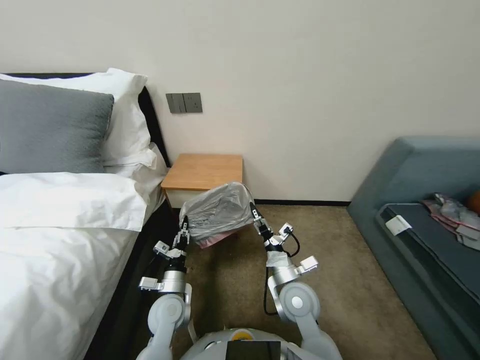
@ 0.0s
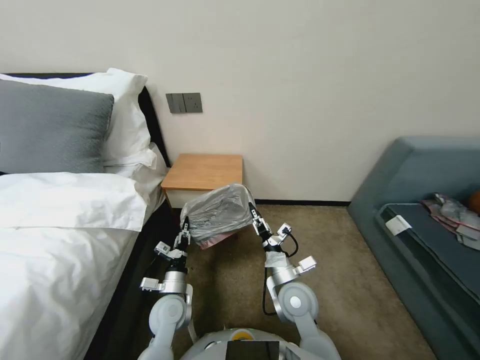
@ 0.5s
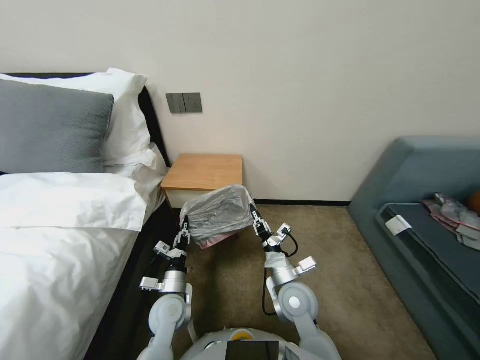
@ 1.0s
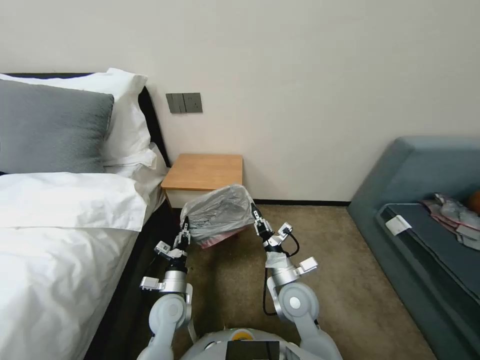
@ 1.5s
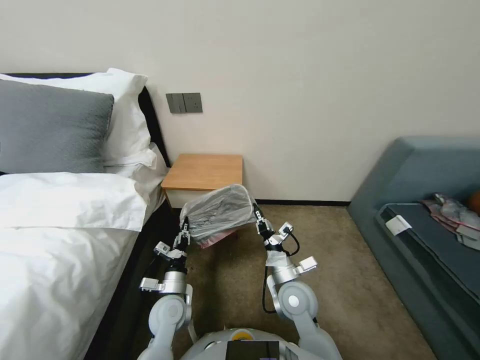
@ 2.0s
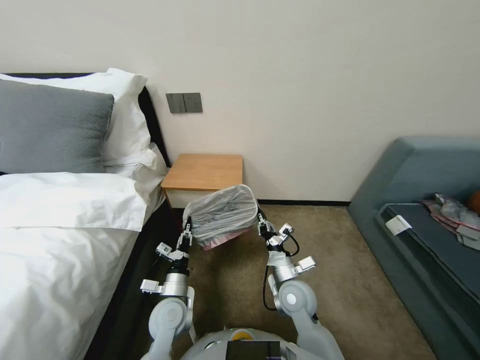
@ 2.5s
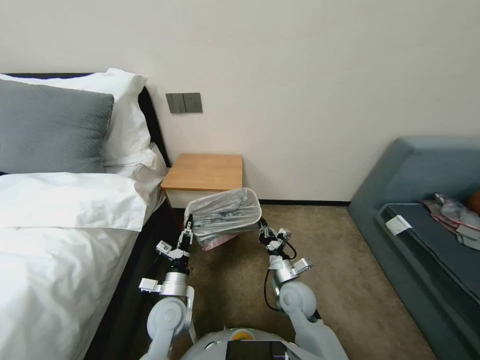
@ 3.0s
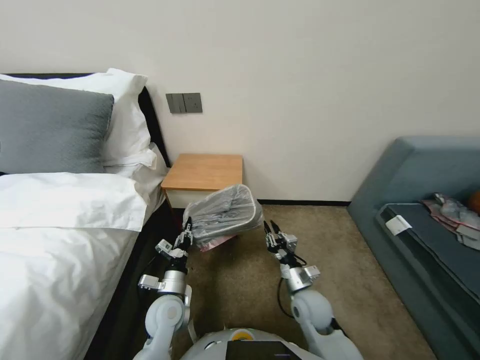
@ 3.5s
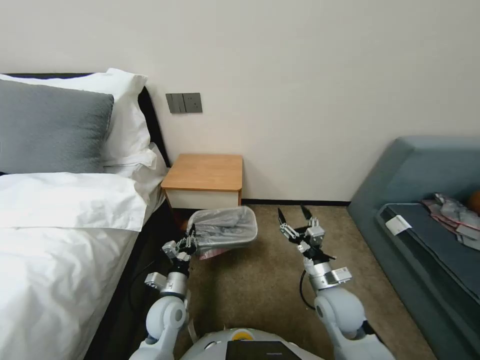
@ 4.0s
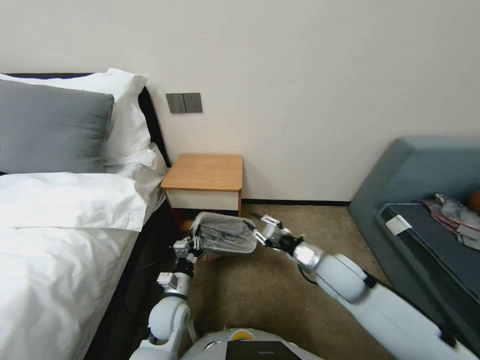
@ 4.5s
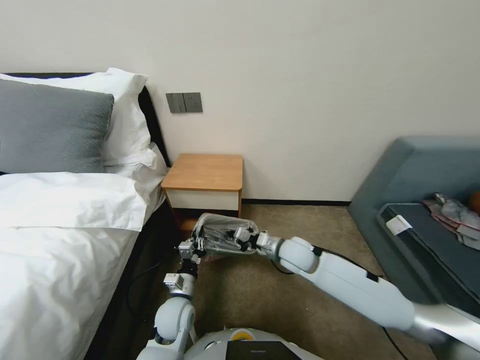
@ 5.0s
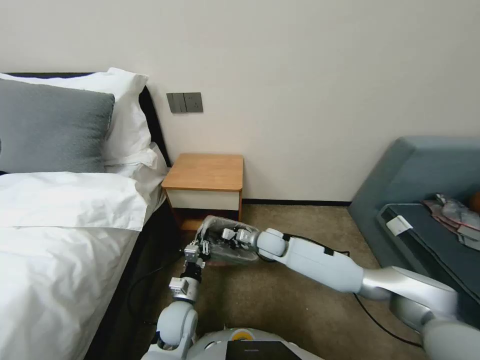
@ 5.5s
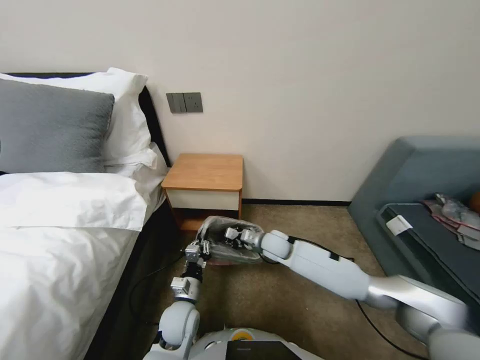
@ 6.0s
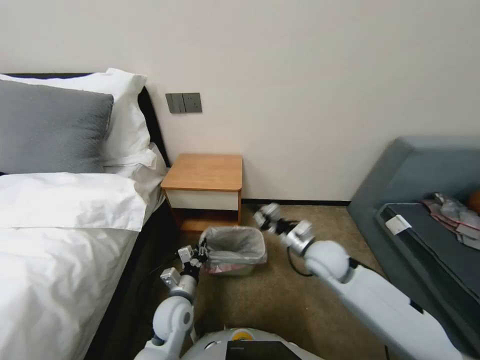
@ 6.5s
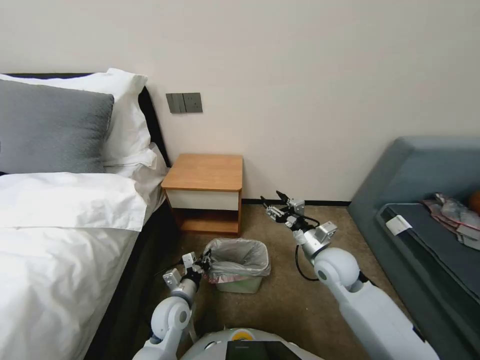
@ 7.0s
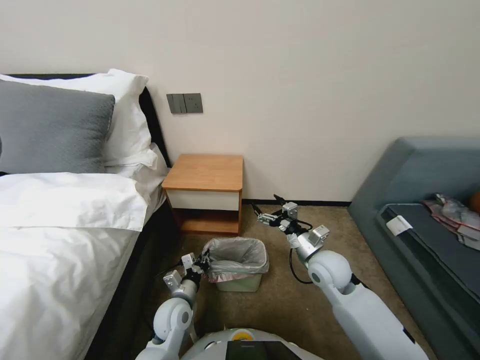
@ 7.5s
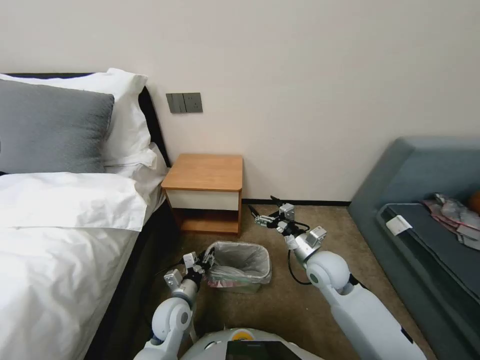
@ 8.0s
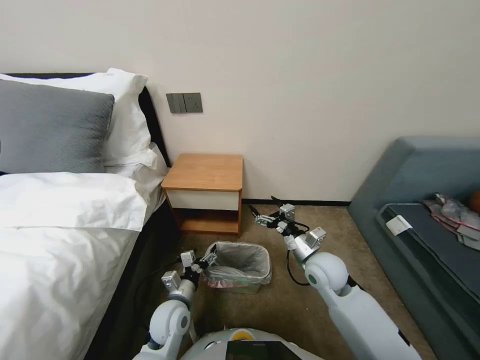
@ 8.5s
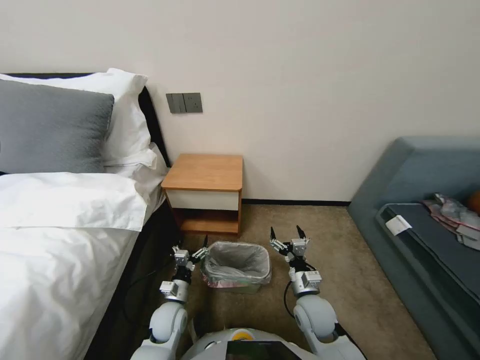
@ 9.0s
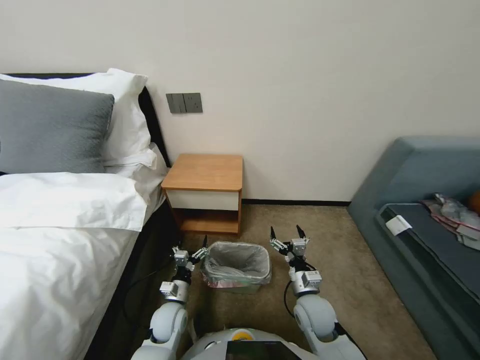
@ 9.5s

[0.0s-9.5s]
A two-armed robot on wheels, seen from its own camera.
Task of the whole recording: Pick up the garbage bag from the table and place it over the trash can.
0.0s to 2.0s: The right gripper closes.
2.0s to 4.0s: The right gripper moves to the right, some 10 cm, and opens.
4.0s to 5.5s: The right gripper moves forward and to the left, approximately 20 cm, and closes its fingers.
5.5s to 7.5s: The right gripper travels to the right, backward and upward by about 15 cm, and opens up.
7.5s to 9.5s: The left gripper travels downward by approximately 5 cm, and opens; the right gripper heads downward and backward, covering approximately 15 cm.

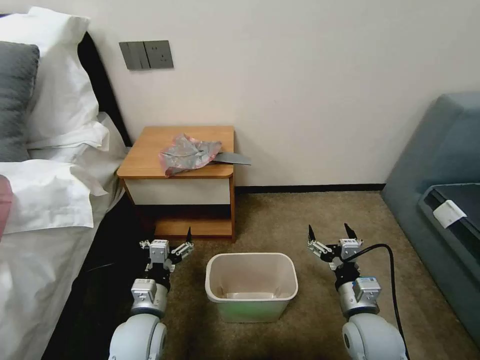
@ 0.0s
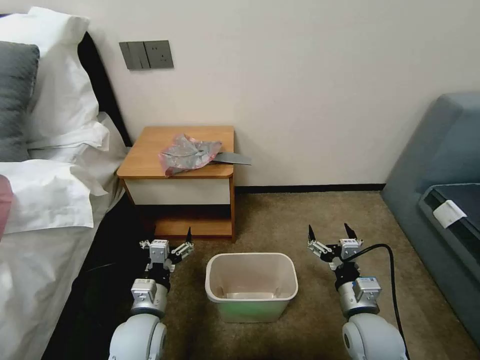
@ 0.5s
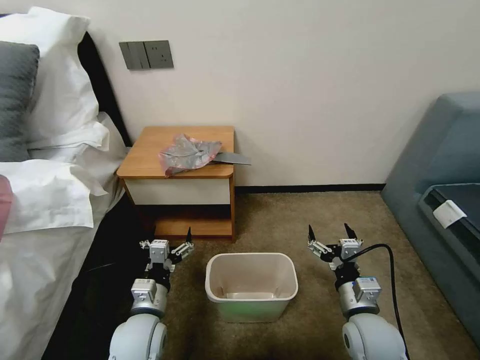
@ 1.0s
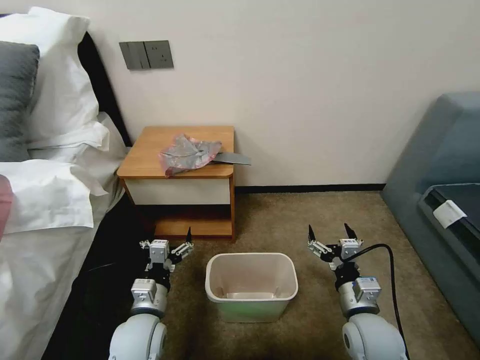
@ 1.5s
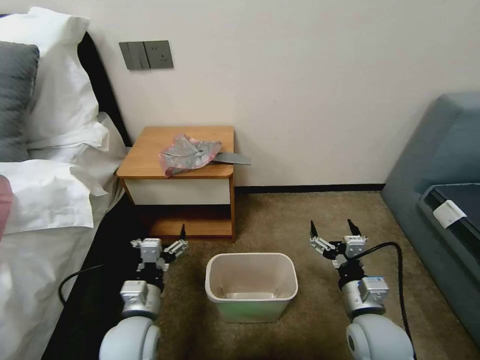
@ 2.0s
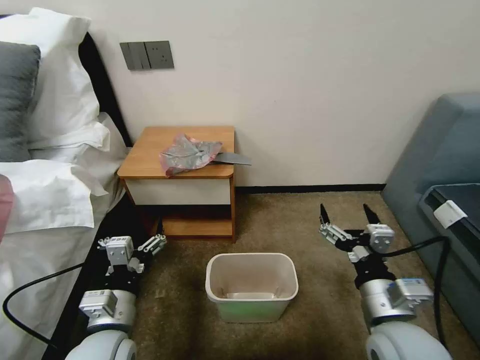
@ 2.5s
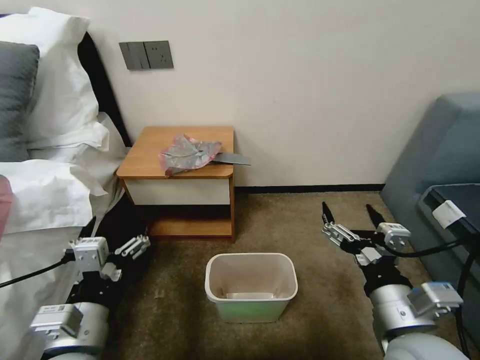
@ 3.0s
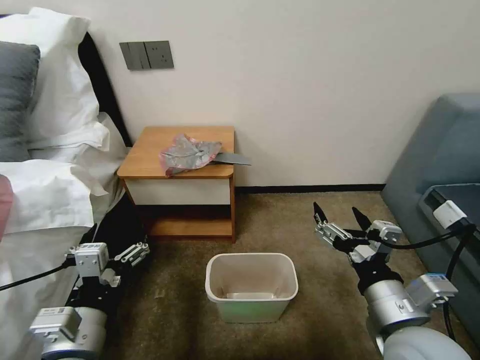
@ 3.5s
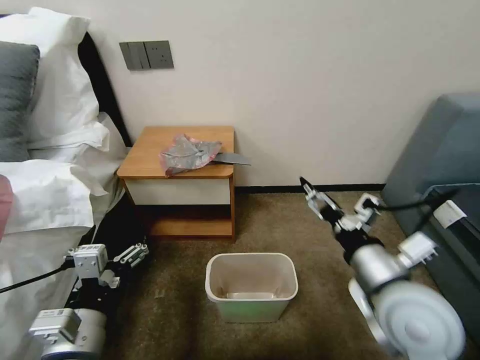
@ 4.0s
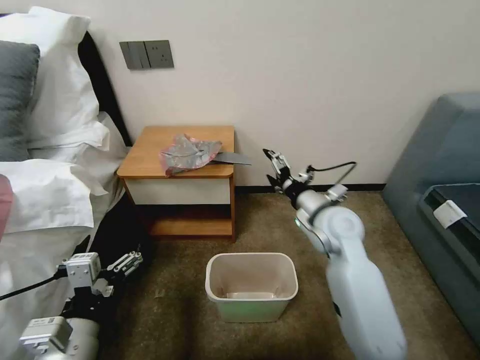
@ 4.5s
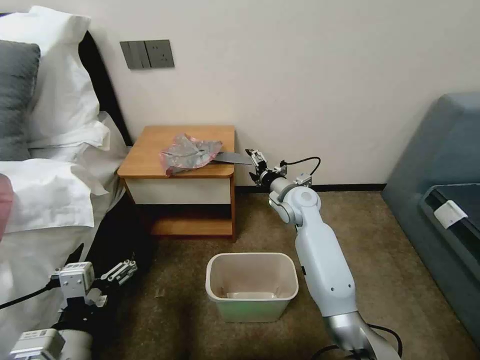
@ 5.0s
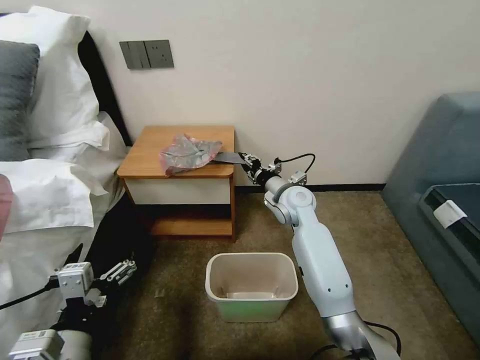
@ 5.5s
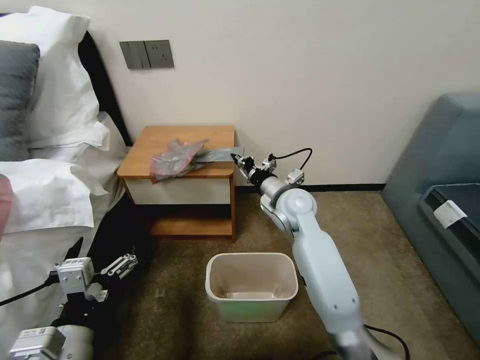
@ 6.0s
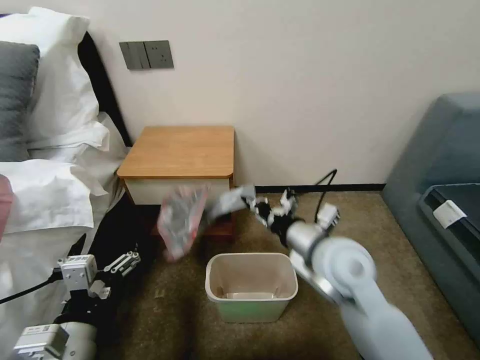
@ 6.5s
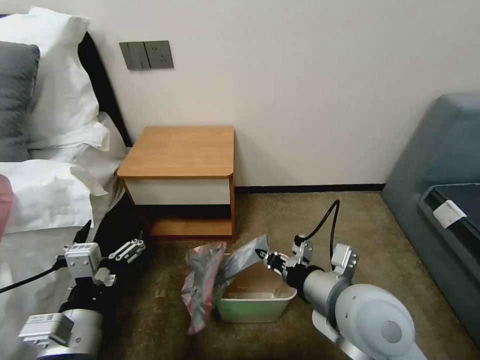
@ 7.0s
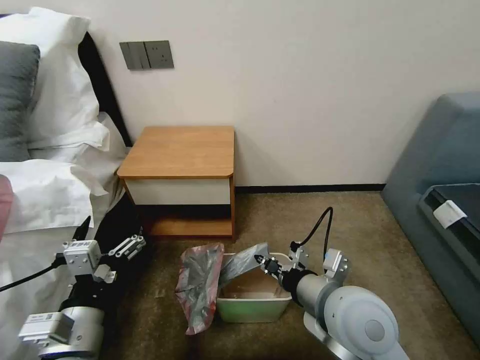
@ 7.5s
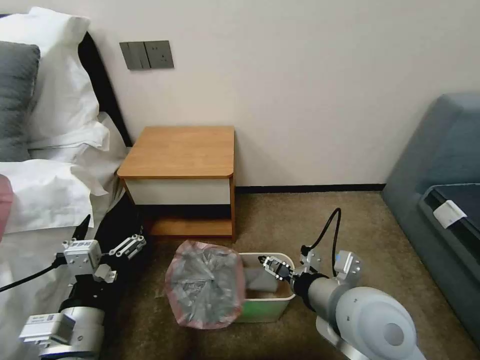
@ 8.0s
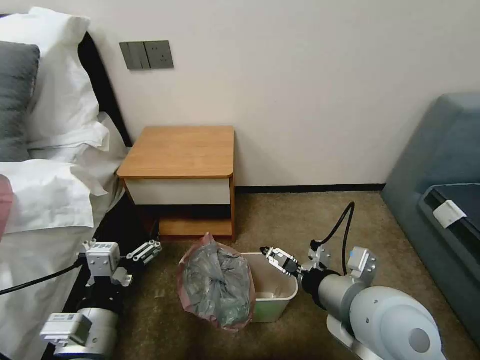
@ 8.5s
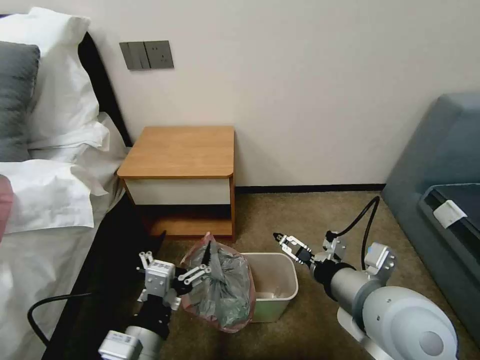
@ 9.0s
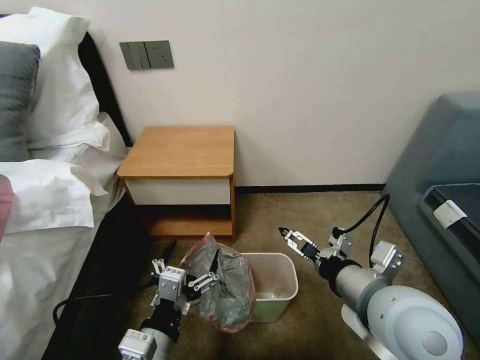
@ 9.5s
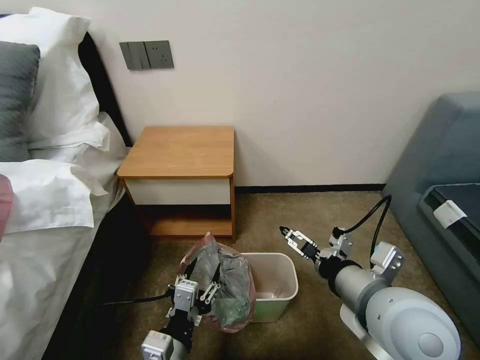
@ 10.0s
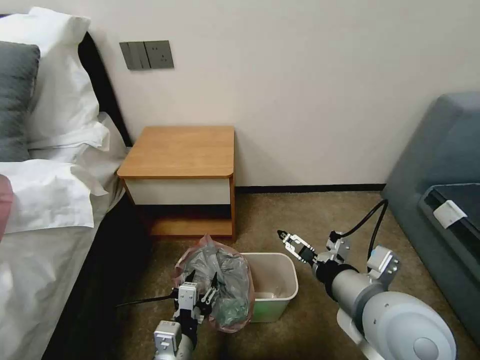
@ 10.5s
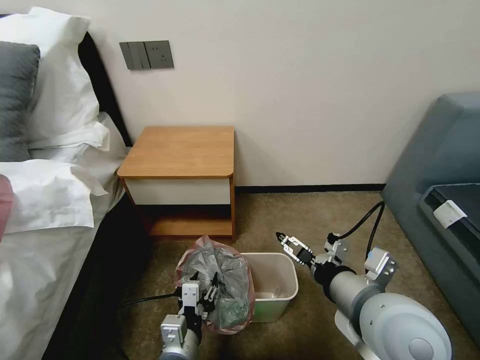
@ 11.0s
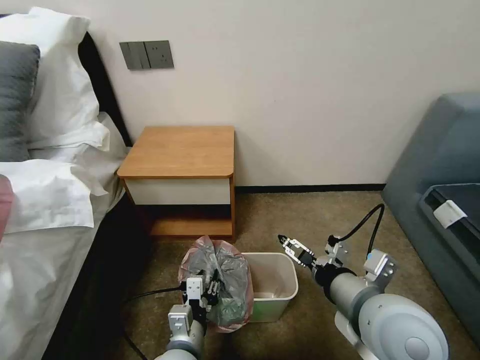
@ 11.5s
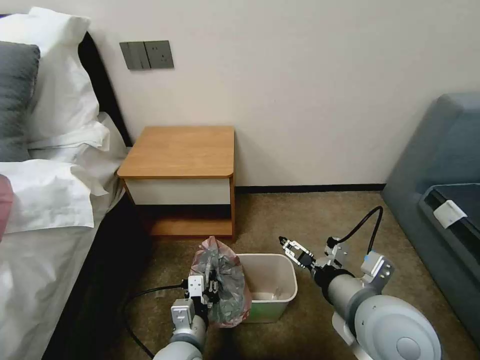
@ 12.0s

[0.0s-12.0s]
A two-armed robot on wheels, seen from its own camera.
Task of the whole recording: Pick up the garbage bag from the table and place it over the trash can.
2.0s to 4.0s: The right gripper is displaced upward by roughly 15 cm. Meanwhile the left gripper goes approximately 15 cm upward and backward.
4.0s to 6.0s: The right gripper moves forward and to the left, about 25 cm, and closes up.
6.0s to 8.0s: The right gripper heads backward, covering some 25 cm, and opens.
8.0s to 10.0s: The left gripper travels to the right and downward by approximately 10 cm, and closes.
10.0s to 12.0s: The left gripper is displaced forward and downward by some 10 cm, and closes up.

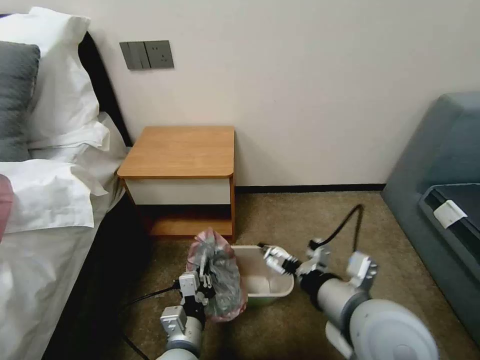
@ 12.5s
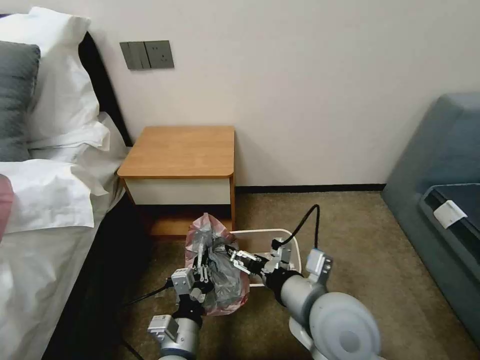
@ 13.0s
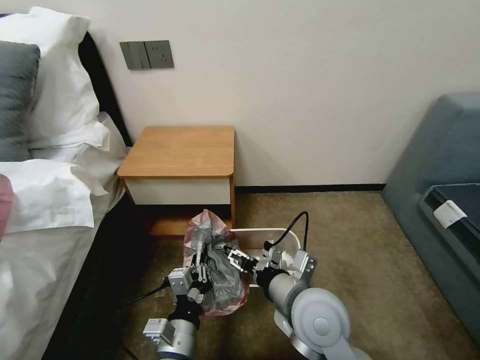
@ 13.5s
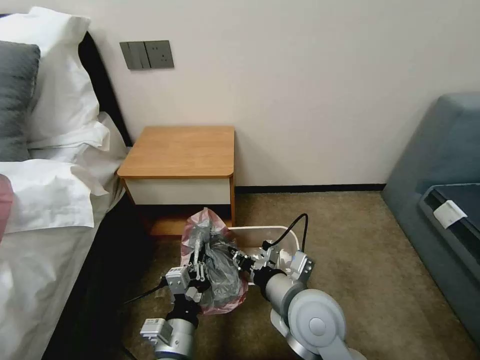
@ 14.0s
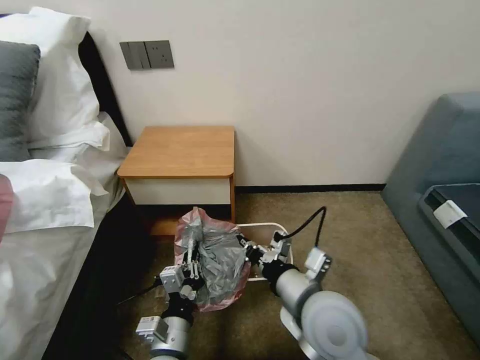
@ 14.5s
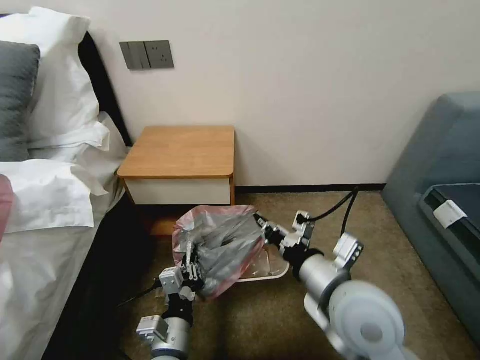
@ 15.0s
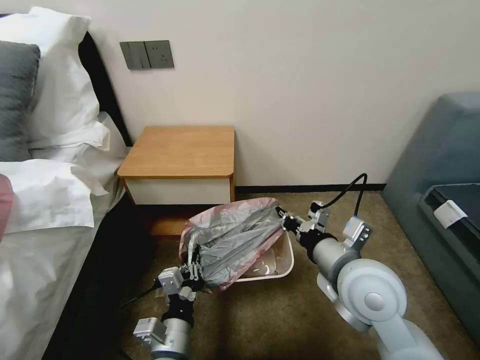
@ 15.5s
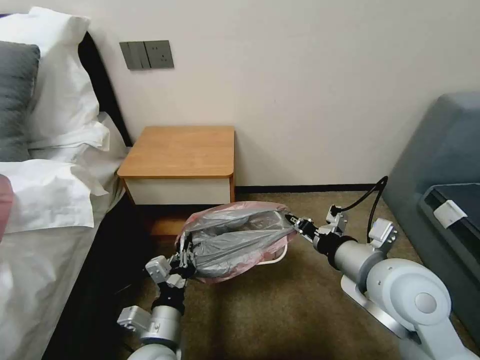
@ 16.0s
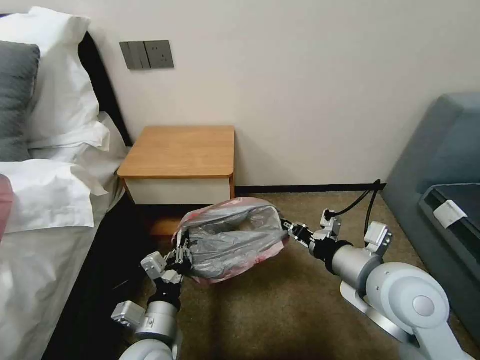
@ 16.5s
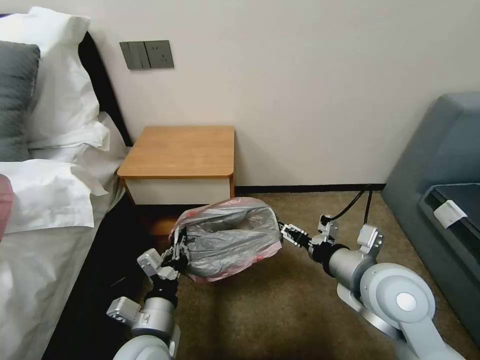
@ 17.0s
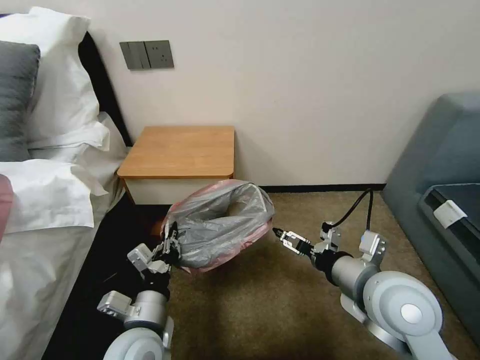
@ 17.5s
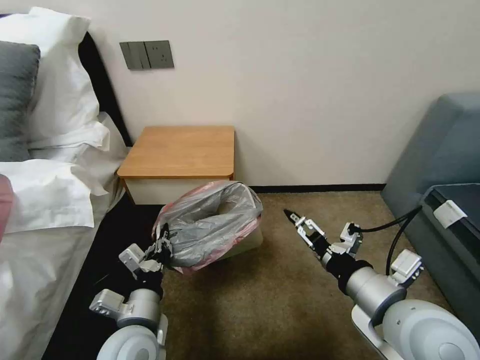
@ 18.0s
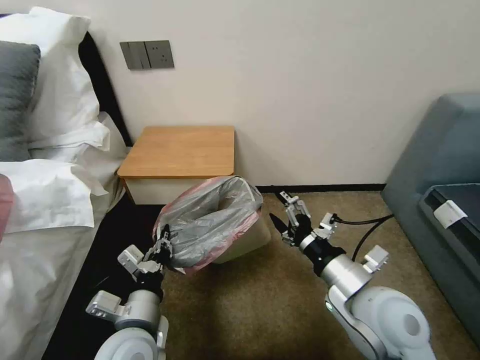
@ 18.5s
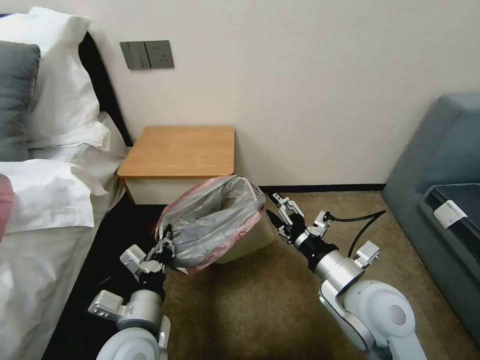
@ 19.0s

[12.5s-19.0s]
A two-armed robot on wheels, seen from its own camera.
Task of the whole recording: Pick up the garbage bag from the table and place it over the trash can.
12.5s to 14.5s: The right gripper goes about 5 cm to the left, and closes.
14.5s to 17.0s: The right gripper heads to the right, covering roughly 10 cm, and opens, while the left gripper moves approximately 5 cm.
